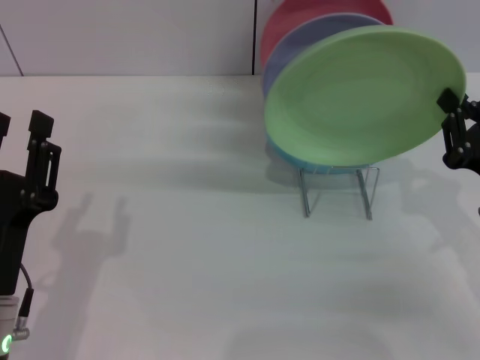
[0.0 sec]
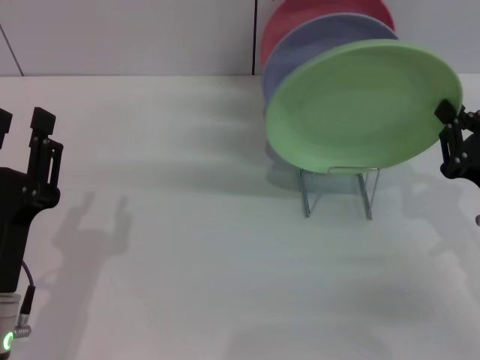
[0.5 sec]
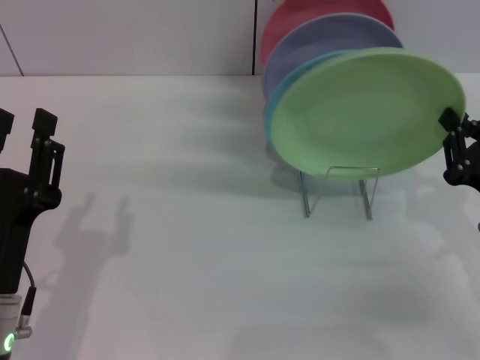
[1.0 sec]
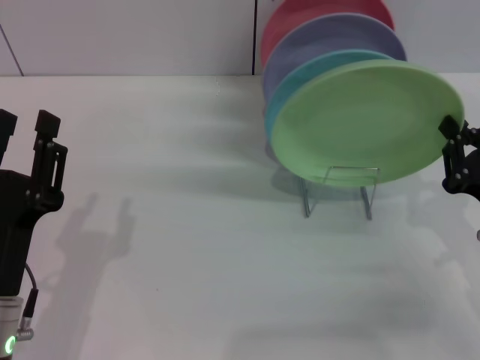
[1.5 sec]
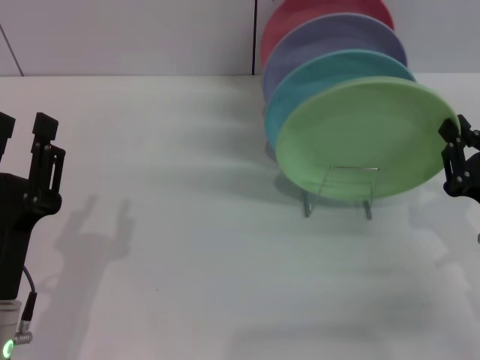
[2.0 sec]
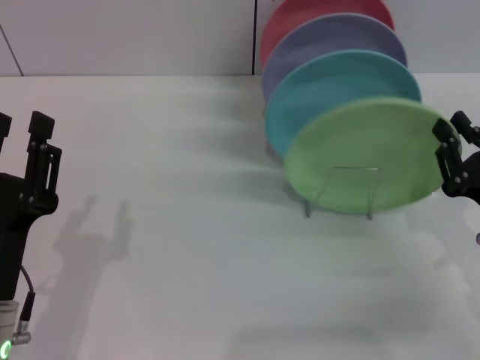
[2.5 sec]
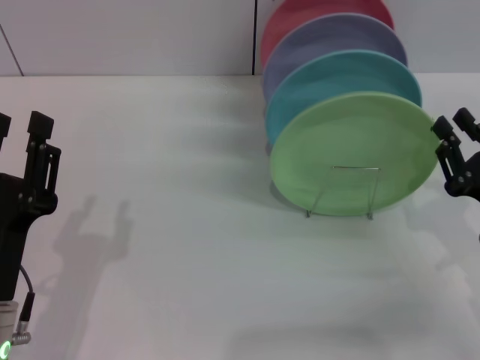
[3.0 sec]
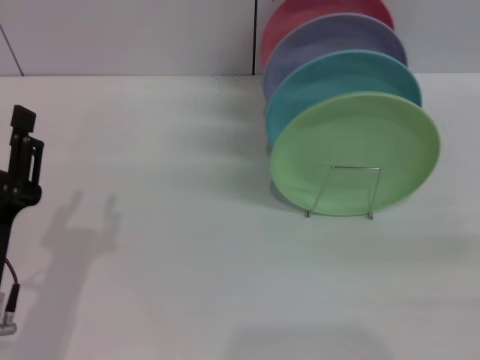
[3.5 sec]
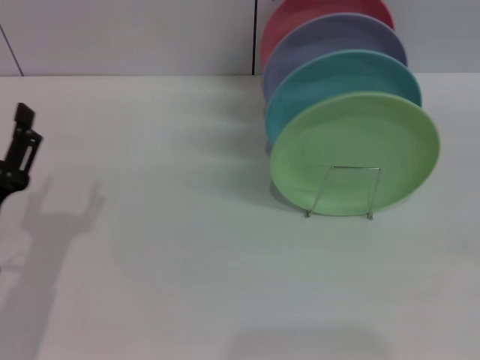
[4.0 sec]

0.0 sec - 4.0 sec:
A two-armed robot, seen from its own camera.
Task of the whole recording: Grip the plate with one hand, pass it to the other, then set it on the shelf.
Step, 0.0 sec - 2.0 sec: Place the plate on the shelf with the right gripper.
0.0 sec - 2.0 sec: The grippers move only a little.
2.0 sec - 4.0 sec: The right gripper moves to the right and backward, approximately 15 cm, and opens. The left gripper ends up approximately 5 cm from where it was.
